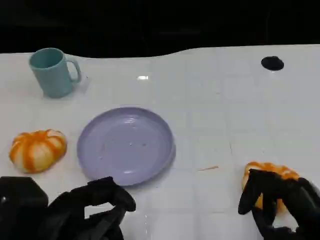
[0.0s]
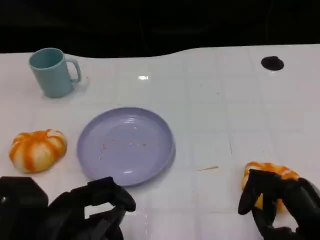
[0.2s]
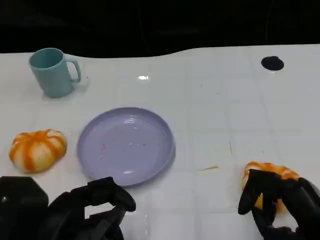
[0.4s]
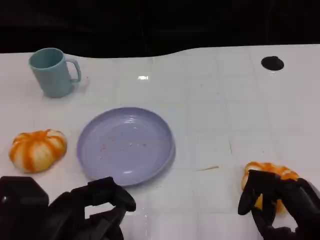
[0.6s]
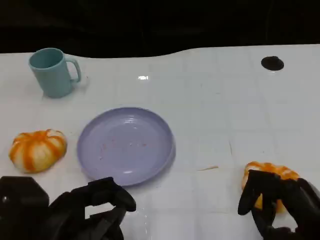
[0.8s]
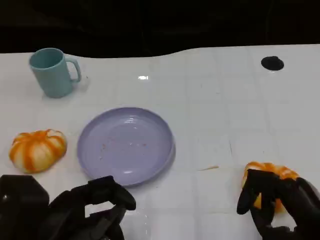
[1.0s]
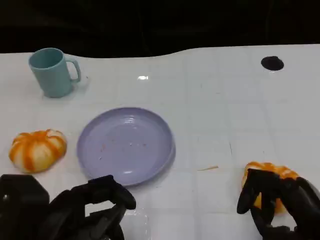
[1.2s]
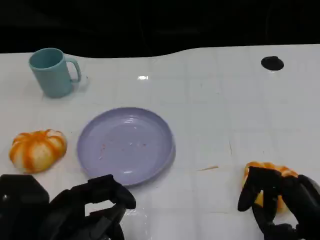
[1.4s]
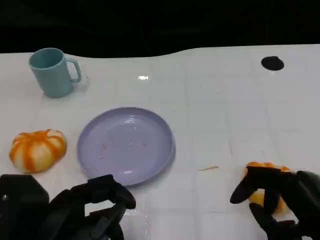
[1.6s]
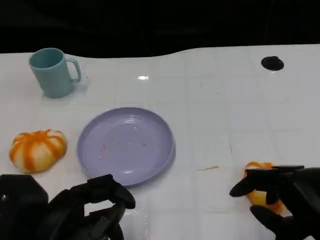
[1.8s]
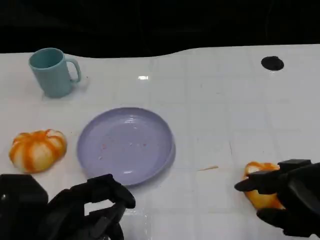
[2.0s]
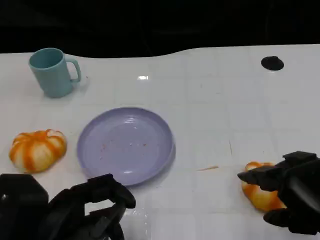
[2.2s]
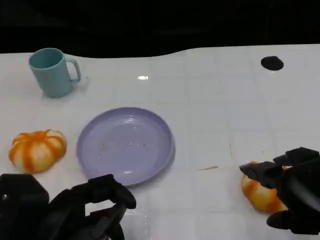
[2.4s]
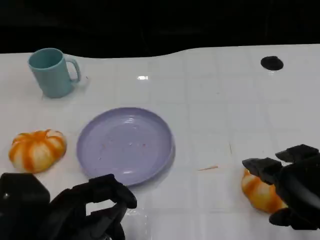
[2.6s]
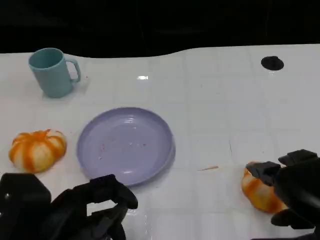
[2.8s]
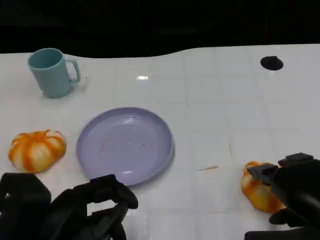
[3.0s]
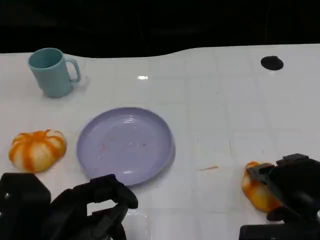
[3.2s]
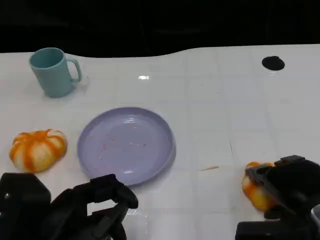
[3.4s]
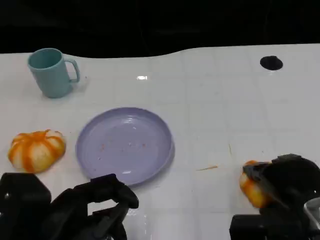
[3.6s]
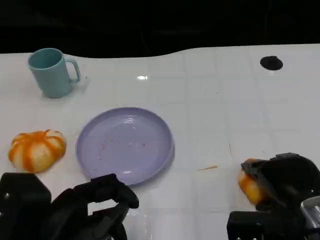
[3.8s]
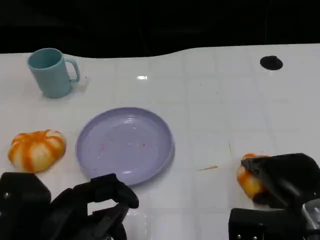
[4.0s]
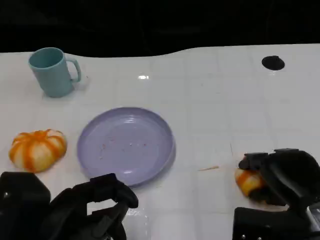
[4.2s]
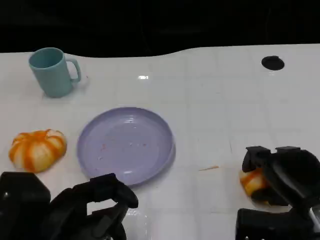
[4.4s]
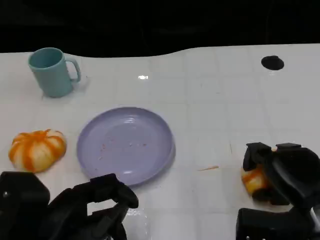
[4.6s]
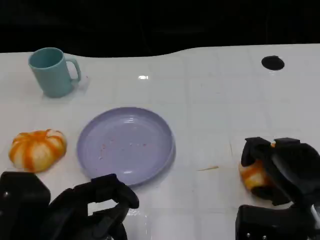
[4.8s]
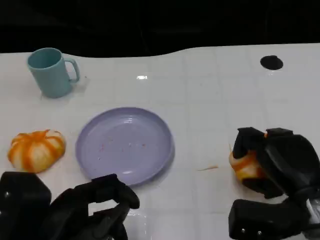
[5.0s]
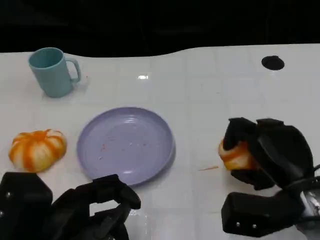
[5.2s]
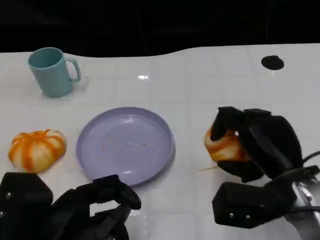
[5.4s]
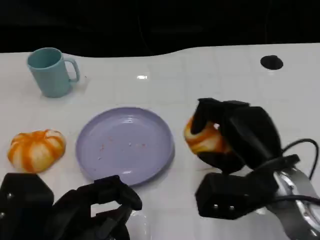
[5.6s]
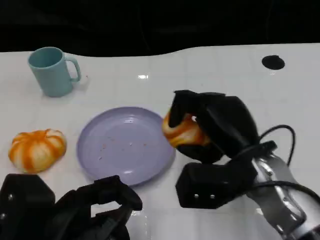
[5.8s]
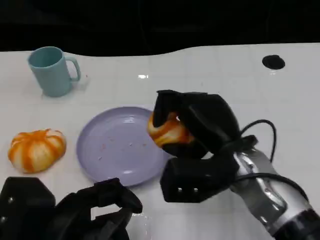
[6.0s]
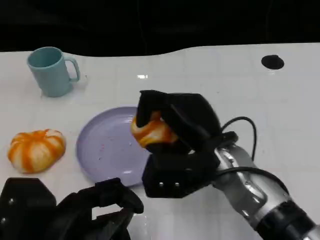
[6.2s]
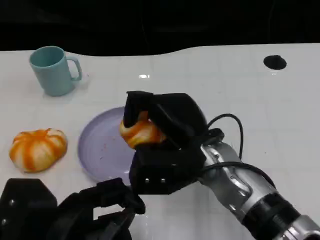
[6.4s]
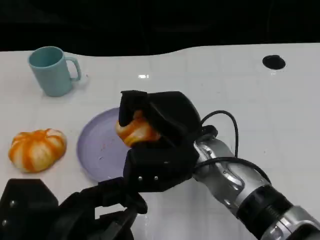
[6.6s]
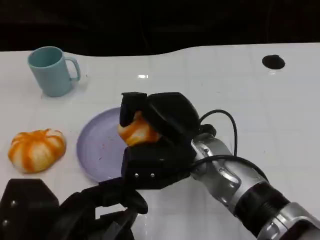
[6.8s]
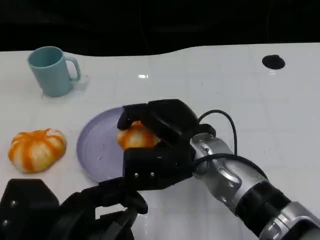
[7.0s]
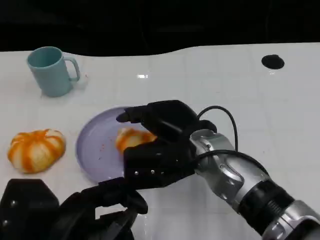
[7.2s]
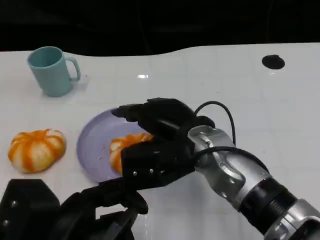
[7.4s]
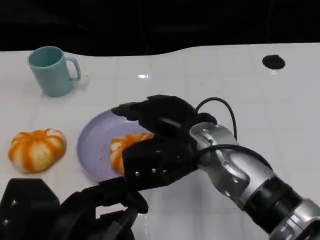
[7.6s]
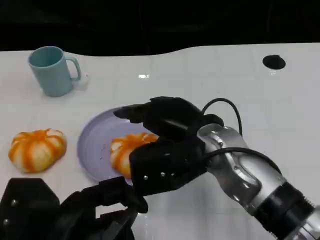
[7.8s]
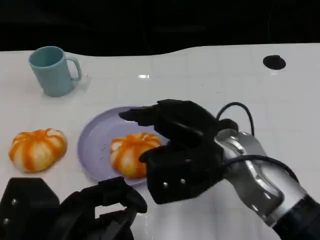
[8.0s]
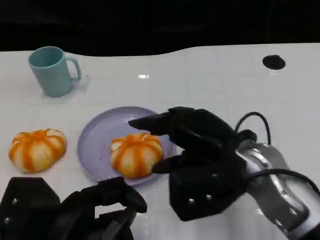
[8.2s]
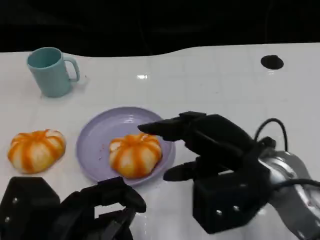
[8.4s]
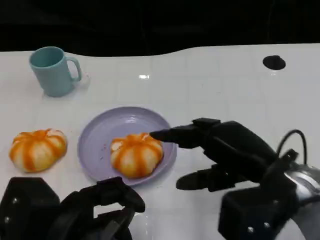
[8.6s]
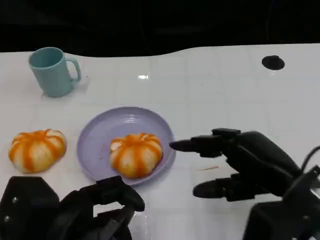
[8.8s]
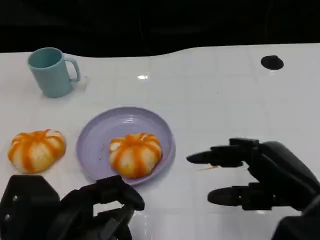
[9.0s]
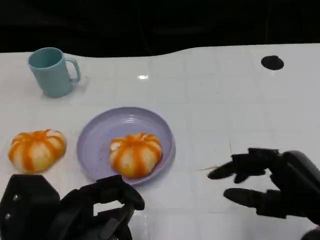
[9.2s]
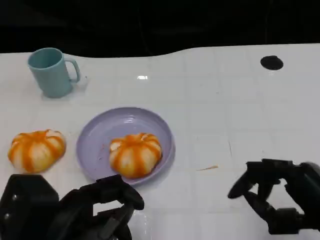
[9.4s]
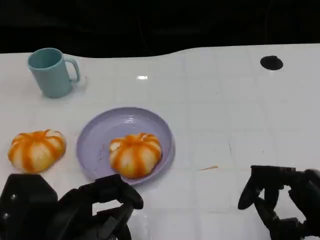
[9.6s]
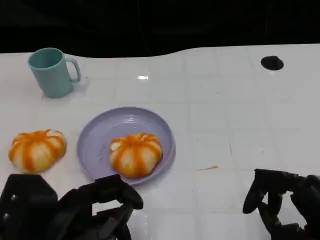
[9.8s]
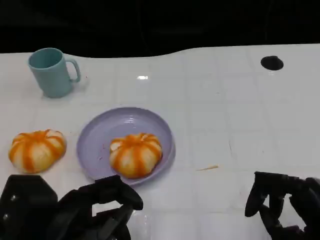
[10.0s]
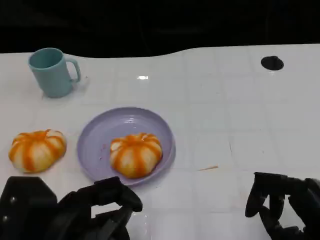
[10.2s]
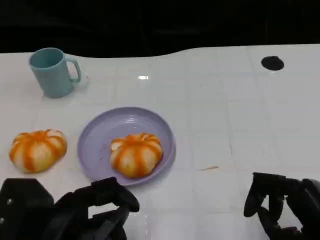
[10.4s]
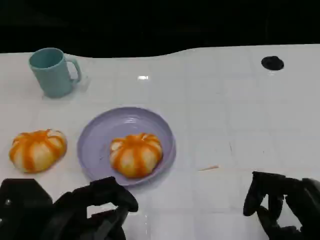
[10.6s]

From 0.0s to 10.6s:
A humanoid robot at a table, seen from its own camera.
Task of the whole recording: Grasp the bread from the table and place it into the plate.
From 0.0s to 1.6s: The hands move only a little.
From 3.0s to 4.6s: The right hand heads downward, covering approximately 5 cm.
From 4.6s to 6.0s: The right hand moves to the left, upward and forward, some 15 cm.
From 7.6s to 9.0s: The right hand shifts roughly 20 cm to the right and backward.
From 9.0s to 10.6s: The right hand changes place by some 5 cm.

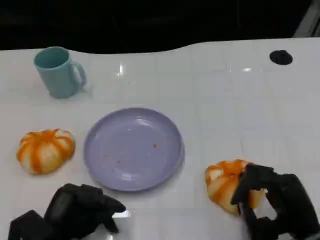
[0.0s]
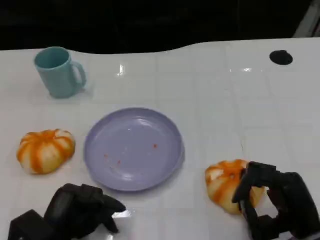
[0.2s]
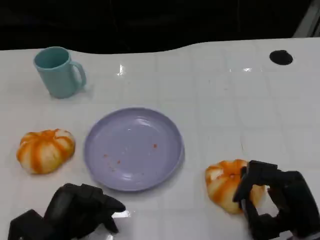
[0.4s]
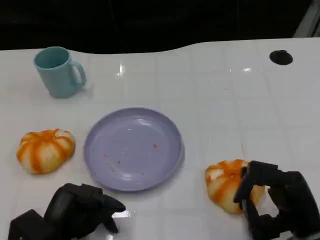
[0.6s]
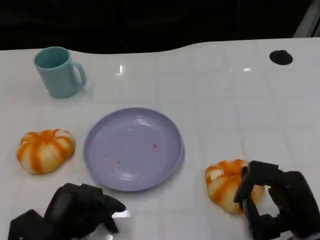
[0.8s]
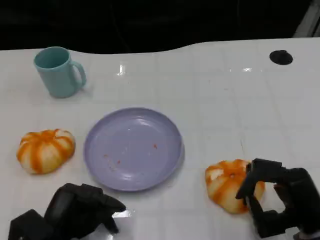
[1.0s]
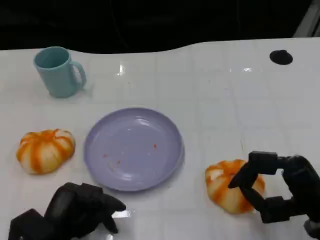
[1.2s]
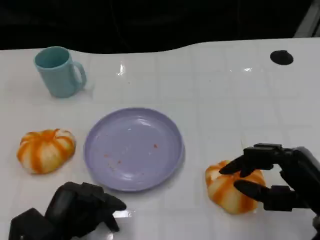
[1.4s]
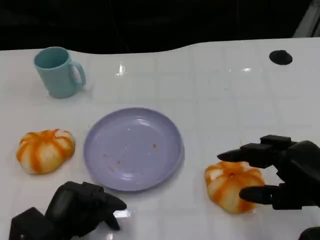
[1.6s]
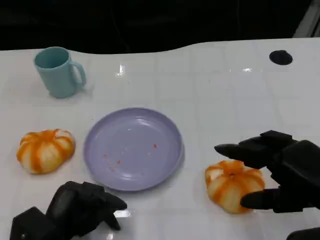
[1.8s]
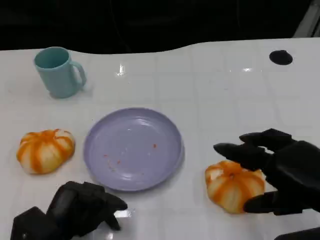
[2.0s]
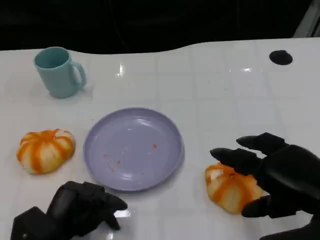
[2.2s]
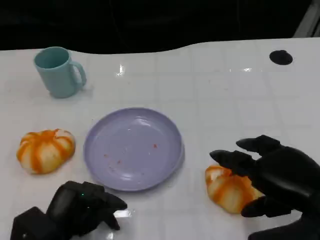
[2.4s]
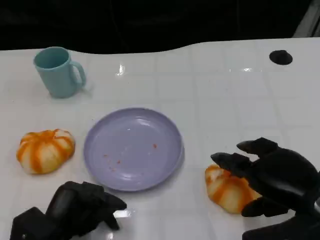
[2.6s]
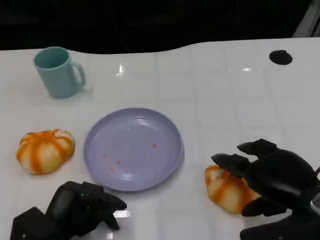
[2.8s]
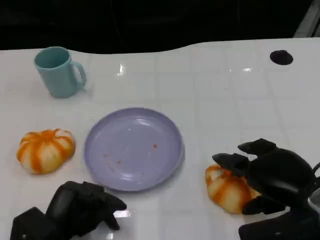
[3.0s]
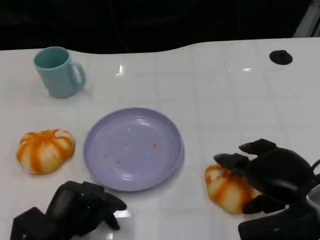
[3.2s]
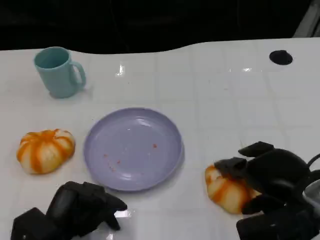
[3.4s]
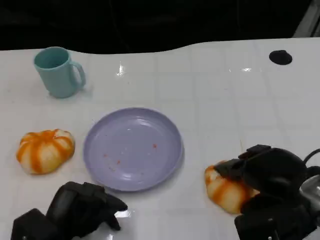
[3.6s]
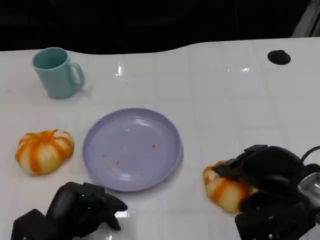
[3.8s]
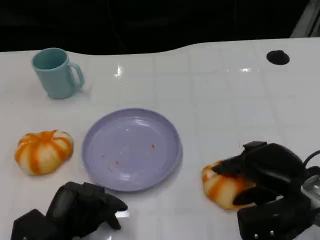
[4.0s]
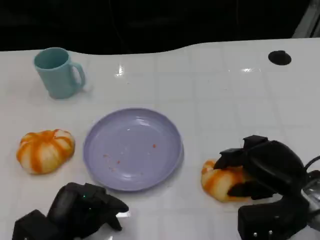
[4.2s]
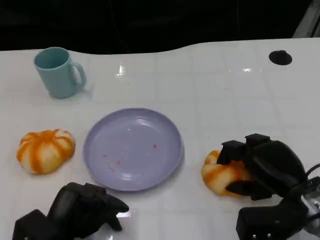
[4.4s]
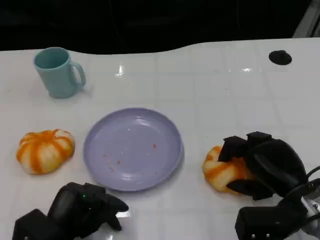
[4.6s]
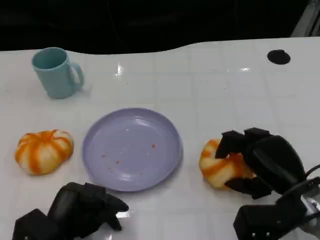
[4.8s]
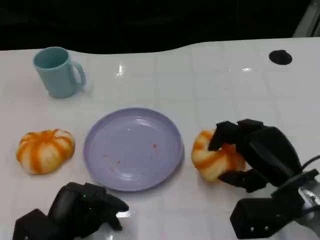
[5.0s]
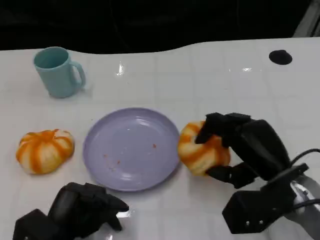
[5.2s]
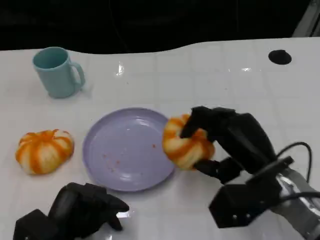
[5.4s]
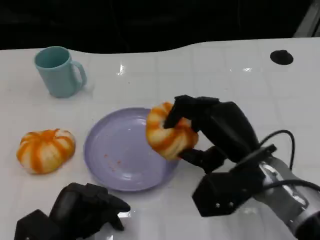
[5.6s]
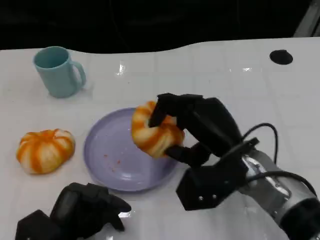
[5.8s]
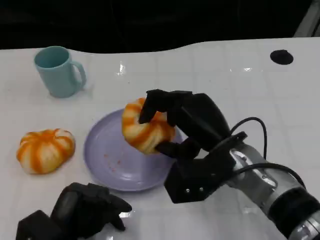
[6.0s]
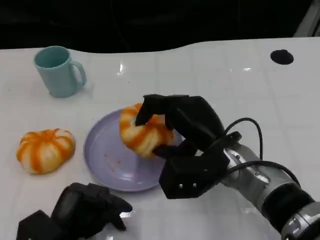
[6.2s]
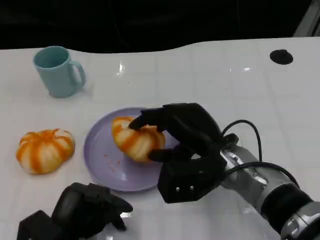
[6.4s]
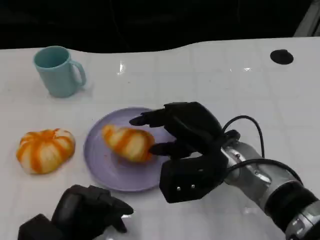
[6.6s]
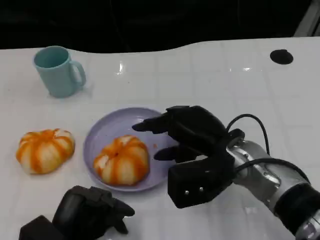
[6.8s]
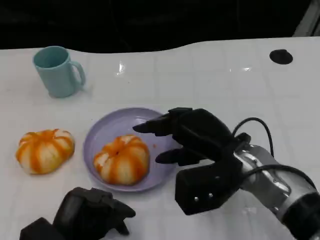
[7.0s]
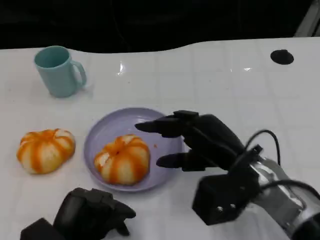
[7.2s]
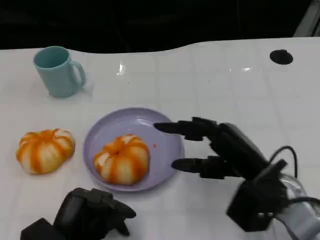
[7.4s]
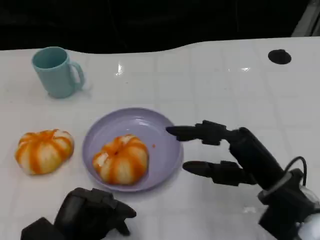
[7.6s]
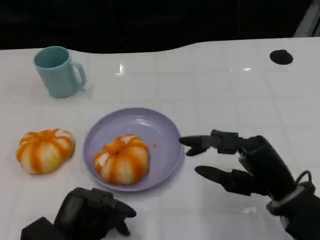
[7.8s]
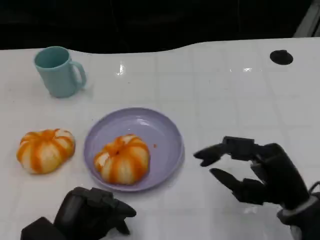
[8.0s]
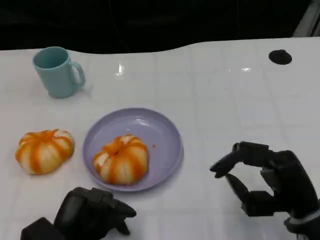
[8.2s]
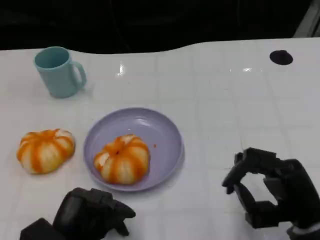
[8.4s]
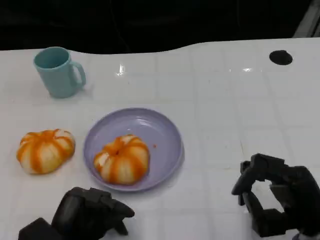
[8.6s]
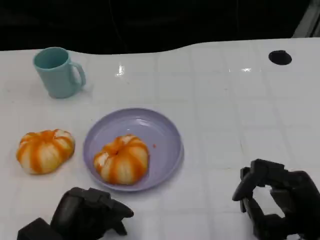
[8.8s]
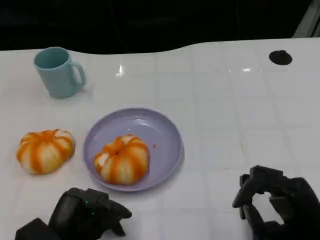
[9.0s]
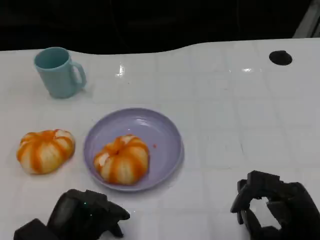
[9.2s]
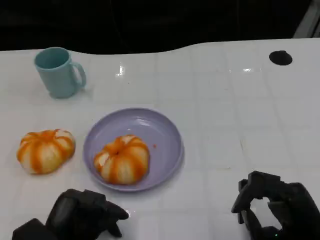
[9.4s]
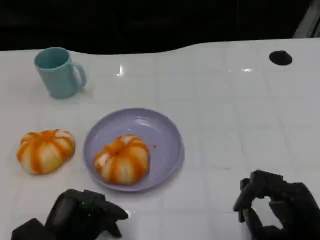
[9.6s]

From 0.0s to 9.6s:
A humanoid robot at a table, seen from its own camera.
Task of the whole recording: Grasp the bread from the table and place it into the plate.
From 0.0s to 1.6s: The right hand moves upward, roughly 10 cm.
From 1.6s to 3.2s: The right hand shifts by approximately 5 cm.
From 3.2s to 4.8s: The right hand goes some 5 cm downward.
From 4.8s to 6.4s: The right hand is displaced to the left by roughly 10 cm.
From 6.4s to 8.0s: The right hand heads to the right and backward, covering some 15 cm.
From 8.0s to 9.6s: The right hand moves some 5 cm.

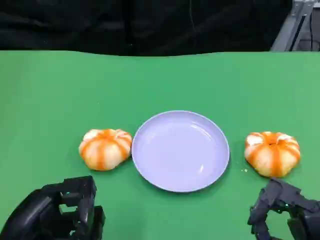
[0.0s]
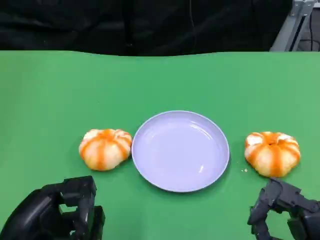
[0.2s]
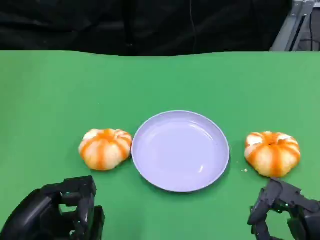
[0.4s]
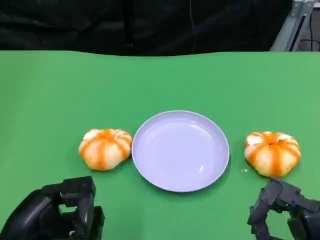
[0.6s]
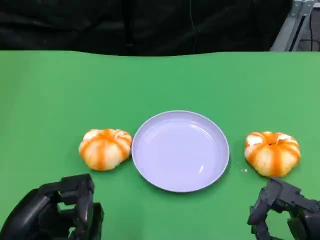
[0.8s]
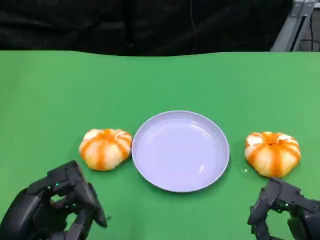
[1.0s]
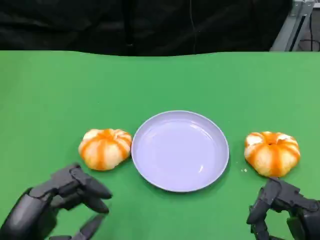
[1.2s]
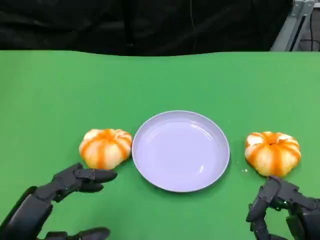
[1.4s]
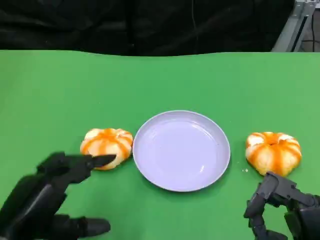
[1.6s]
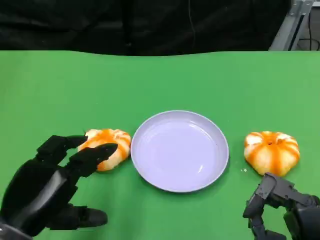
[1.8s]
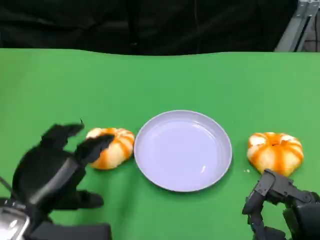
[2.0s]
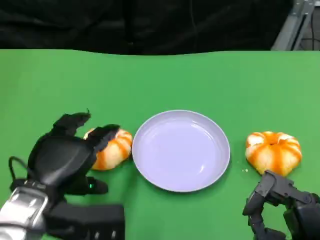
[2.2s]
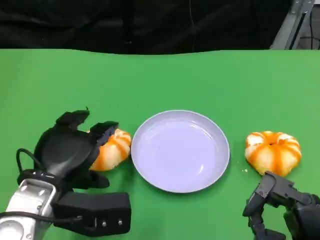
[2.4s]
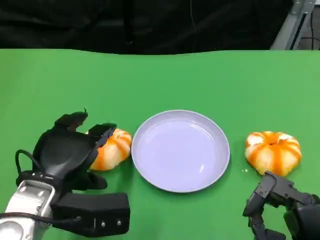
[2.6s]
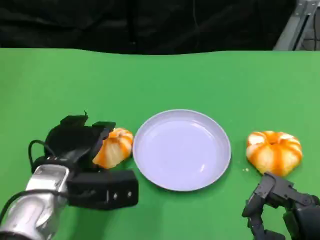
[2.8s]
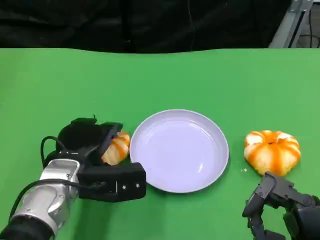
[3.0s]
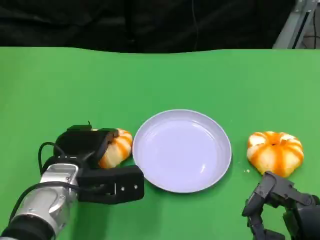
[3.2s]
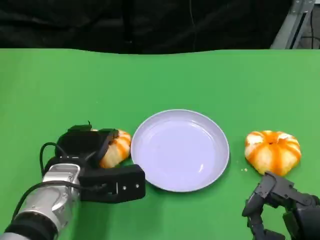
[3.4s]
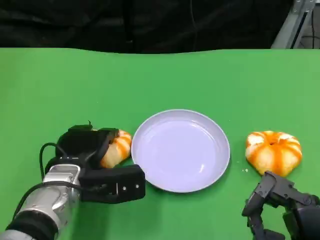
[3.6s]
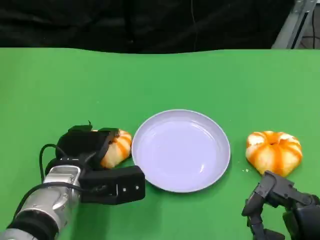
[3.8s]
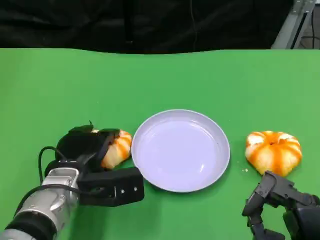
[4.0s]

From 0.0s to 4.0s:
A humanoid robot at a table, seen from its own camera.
Task of the whole recording: Grasp the bread from the table and place it into the plate.
From 1.4s to 2.6s: The left hand shifts approximately 10 cm forward and to the right.
From 2.6s to 4.0s: The left hand goes about 5 cm downward.
